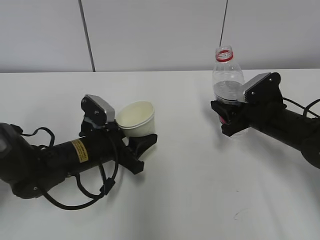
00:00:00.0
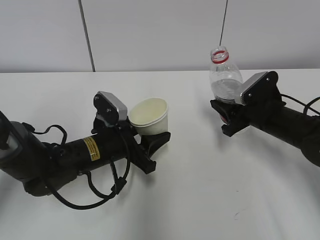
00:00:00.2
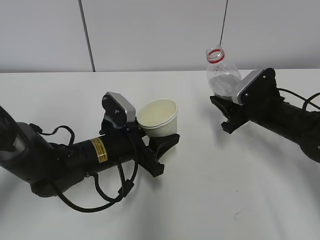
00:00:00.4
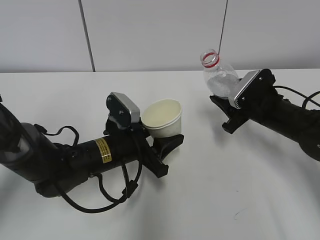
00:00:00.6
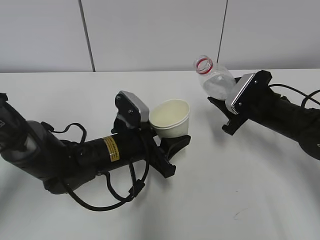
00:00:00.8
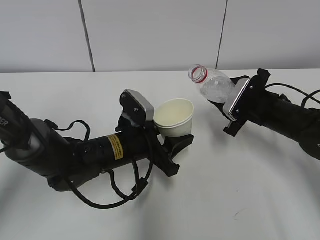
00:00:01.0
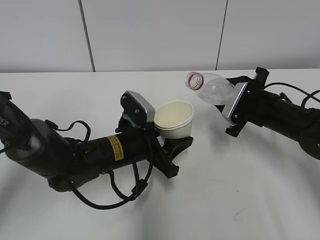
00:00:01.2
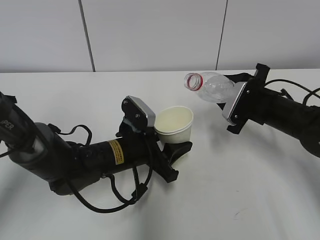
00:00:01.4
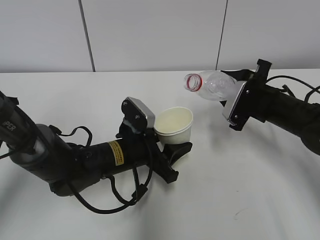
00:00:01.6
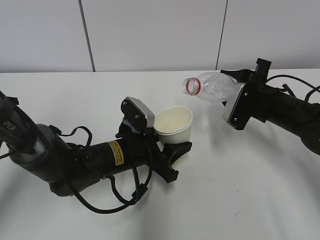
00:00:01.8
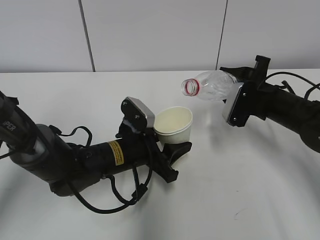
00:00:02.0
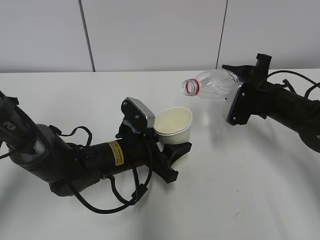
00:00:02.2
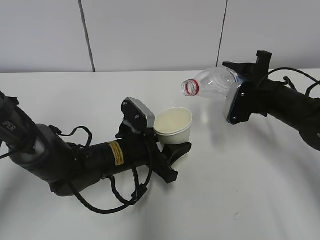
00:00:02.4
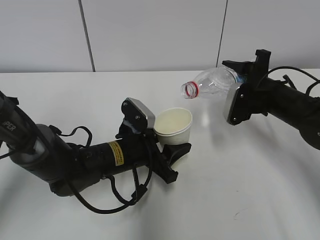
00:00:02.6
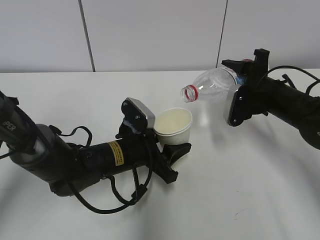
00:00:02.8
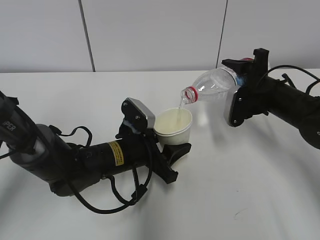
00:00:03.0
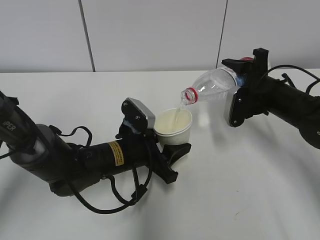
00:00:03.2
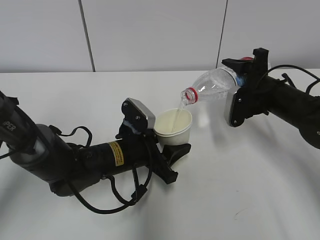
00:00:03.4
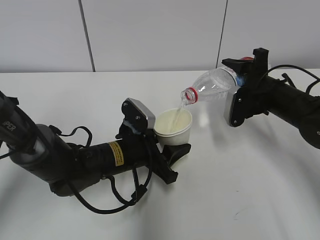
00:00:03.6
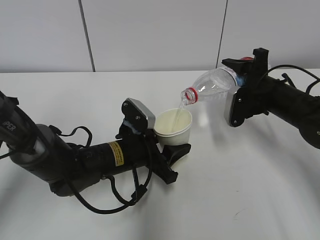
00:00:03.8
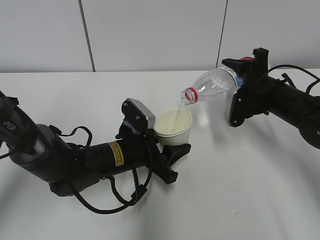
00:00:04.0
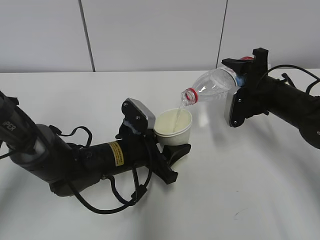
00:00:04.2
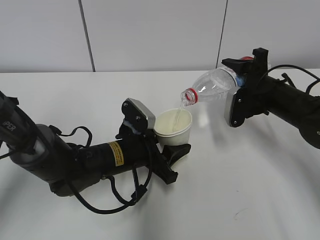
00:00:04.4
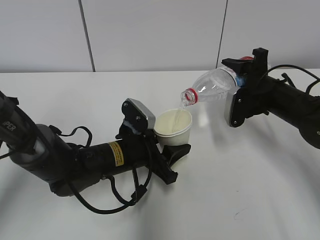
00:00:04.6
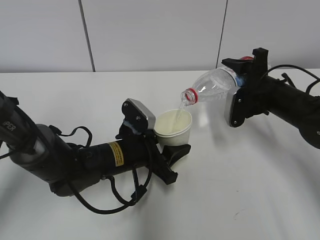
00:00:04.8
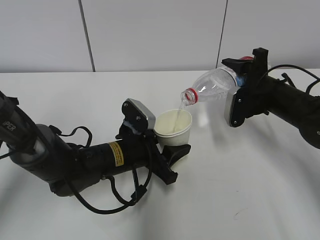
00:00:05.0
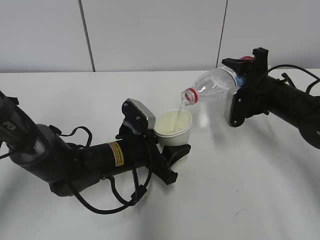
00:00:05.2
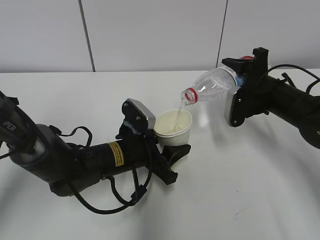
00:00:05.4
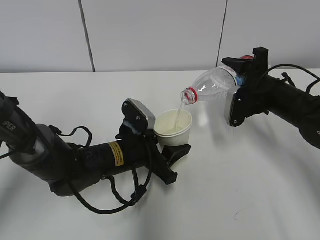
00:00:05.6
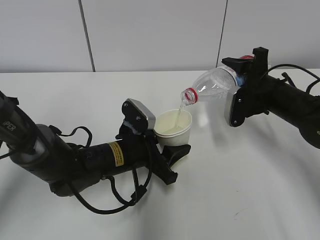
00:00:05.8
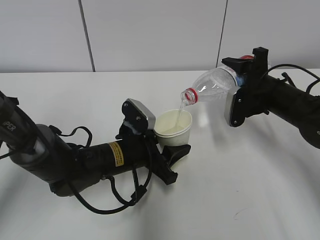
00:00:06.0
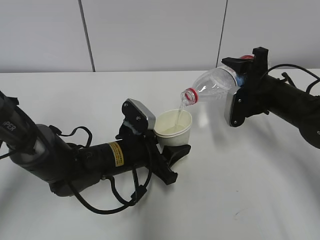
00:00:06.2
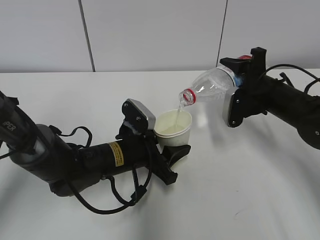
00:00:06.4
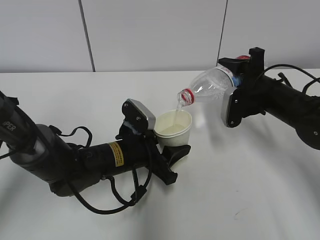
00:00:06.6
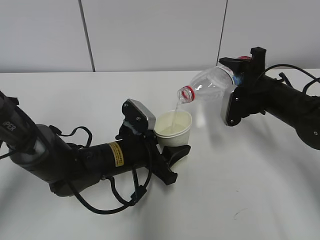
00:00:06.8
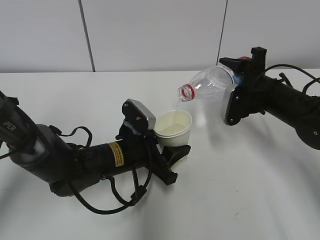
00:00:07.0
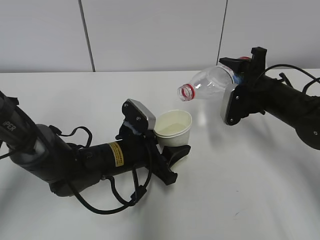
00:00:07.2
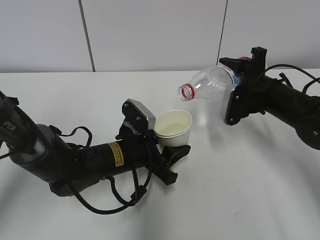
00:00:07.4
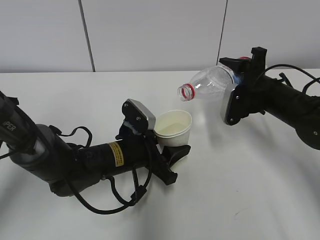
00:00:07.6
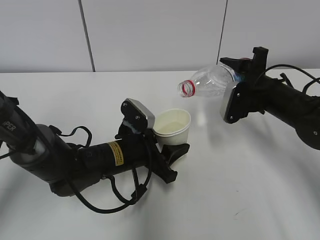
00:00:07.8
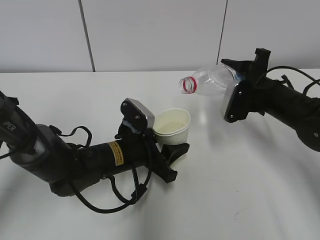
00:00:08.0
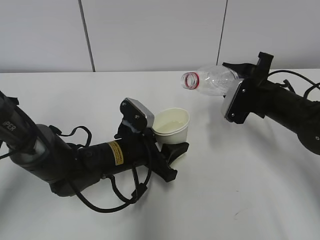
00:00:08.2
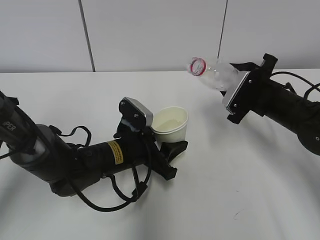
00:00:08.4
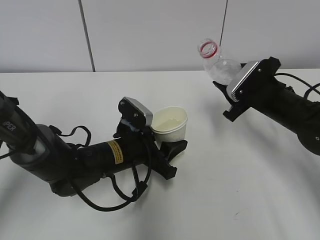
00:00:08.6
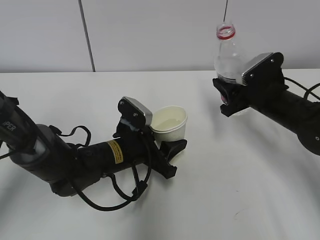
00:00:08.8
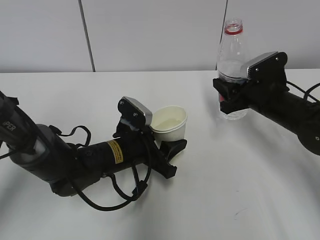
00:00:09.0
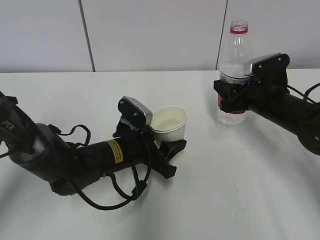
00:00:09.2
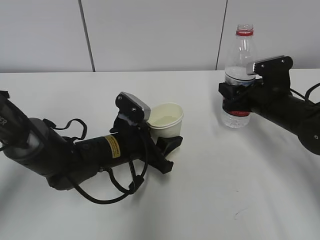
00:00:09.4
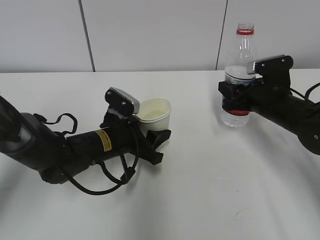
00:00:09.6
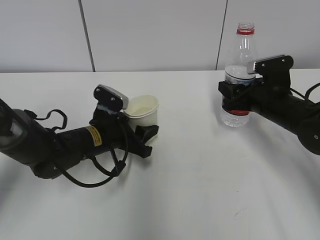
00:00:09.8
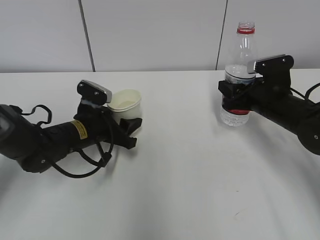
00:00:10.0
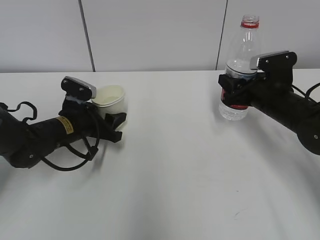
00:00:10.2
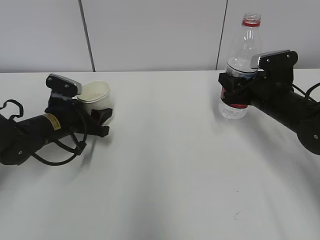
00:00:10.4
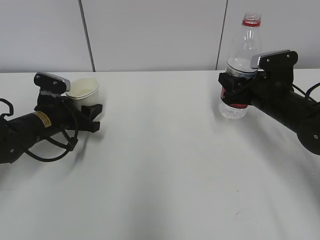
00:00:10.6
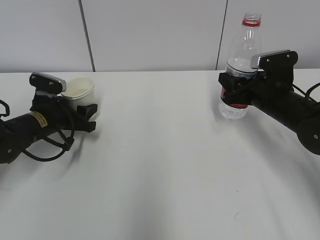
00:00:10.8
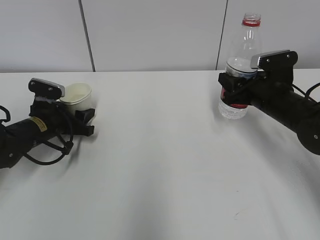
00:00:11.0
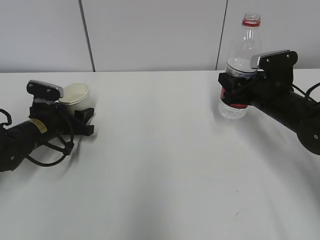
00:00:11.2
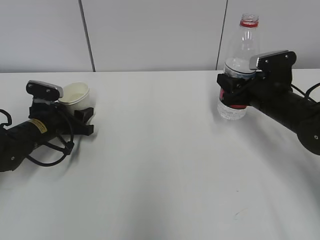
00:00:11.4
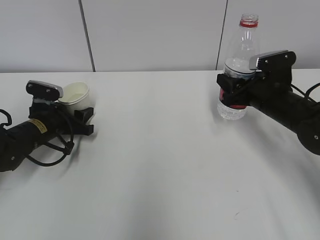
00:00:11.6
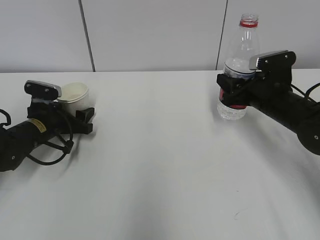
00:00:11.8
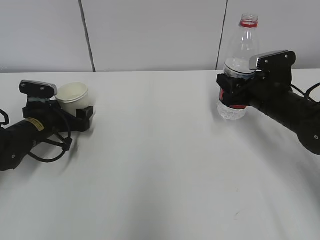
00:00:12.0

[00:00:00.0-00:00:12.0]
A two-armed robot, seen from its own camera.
Step, 00:00:00.6 to 00:00:04.6: Fill water with the left hand.
Step, 00:00:00.6 to 00:00:04.6: Pour water with the right hand.
Step, 00:00:05.8 to 00:00:08.0: Place the paper cup with the left hand.
00:00:00.0 to 00:00:01.6: The left gripper heads to the right, covering roughly 5 cm.
00:00:03.0 to 00:00:07.6: Neither gripper changes place.
00:00:09.0 to 00:00:10.4: The left gripper shifts roughly 15 cm to the left and forward.
00:00:10.4 to 00:00:12.0: The left gripper moves roughly 5 cm, and opens its fingers.

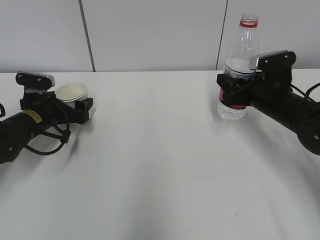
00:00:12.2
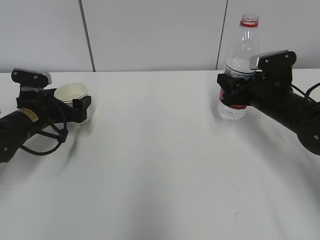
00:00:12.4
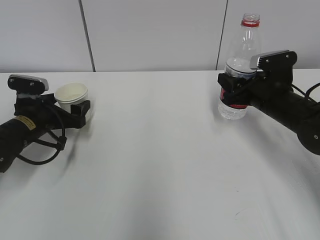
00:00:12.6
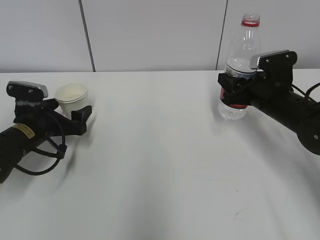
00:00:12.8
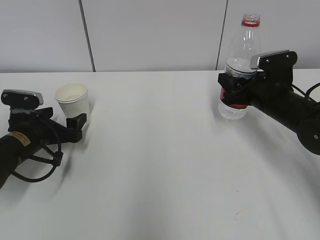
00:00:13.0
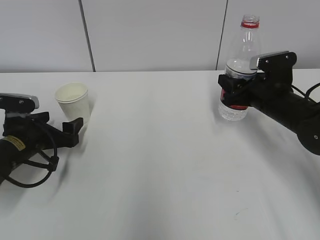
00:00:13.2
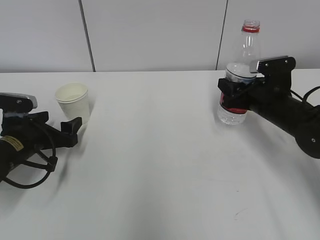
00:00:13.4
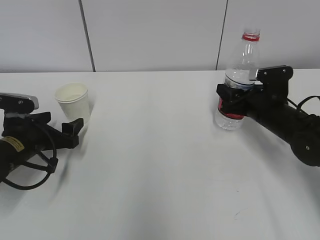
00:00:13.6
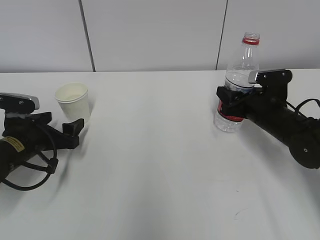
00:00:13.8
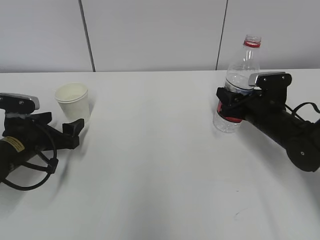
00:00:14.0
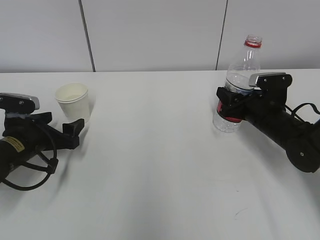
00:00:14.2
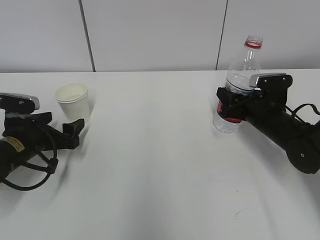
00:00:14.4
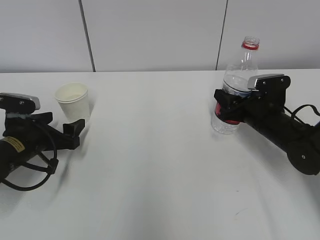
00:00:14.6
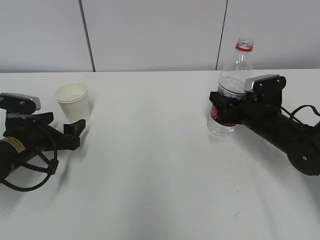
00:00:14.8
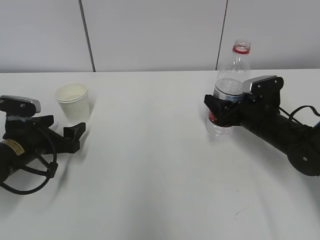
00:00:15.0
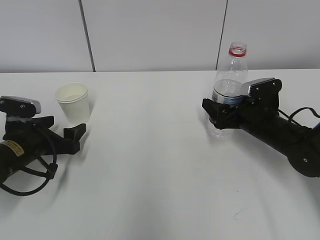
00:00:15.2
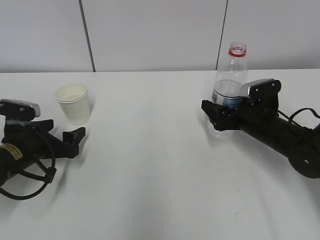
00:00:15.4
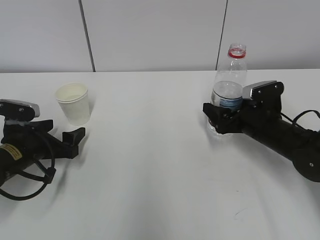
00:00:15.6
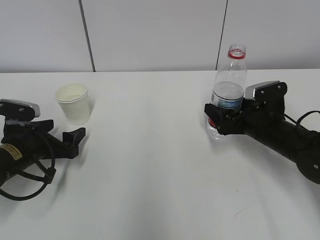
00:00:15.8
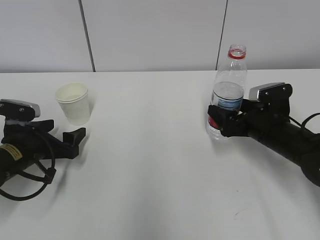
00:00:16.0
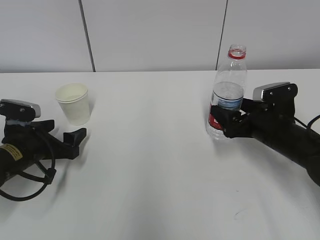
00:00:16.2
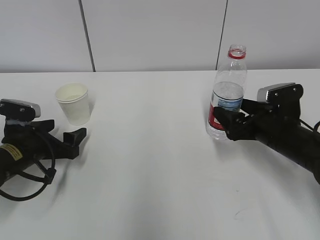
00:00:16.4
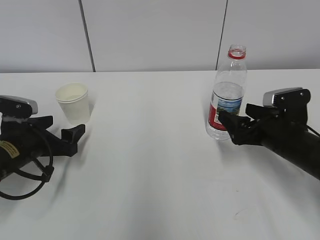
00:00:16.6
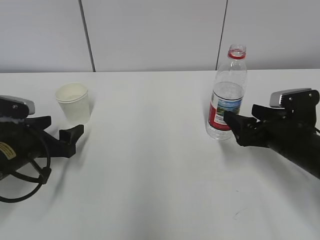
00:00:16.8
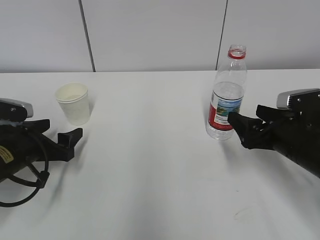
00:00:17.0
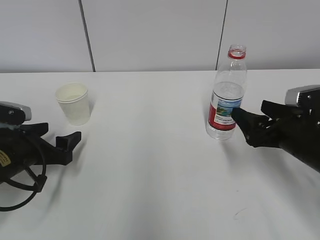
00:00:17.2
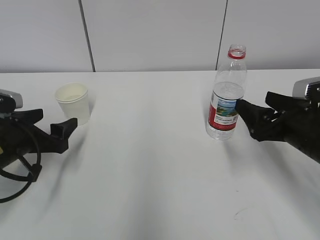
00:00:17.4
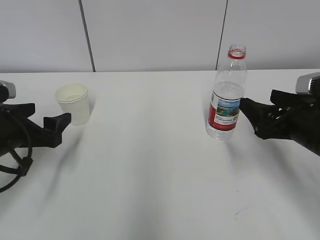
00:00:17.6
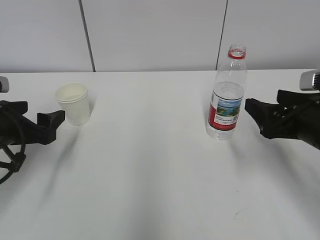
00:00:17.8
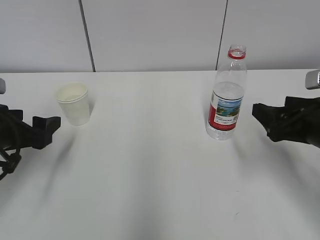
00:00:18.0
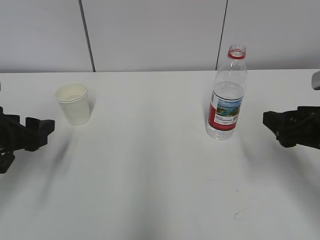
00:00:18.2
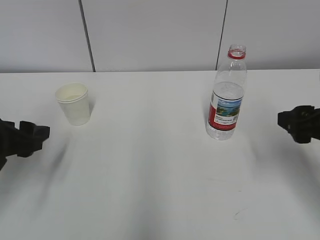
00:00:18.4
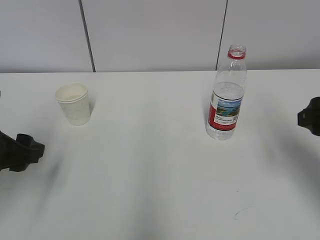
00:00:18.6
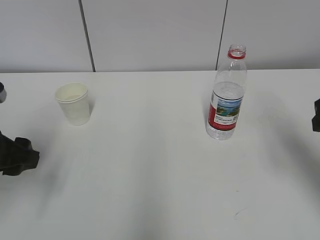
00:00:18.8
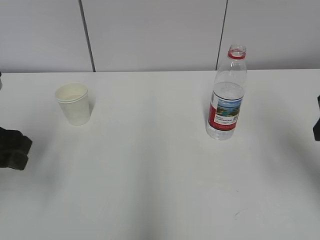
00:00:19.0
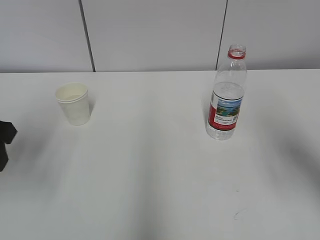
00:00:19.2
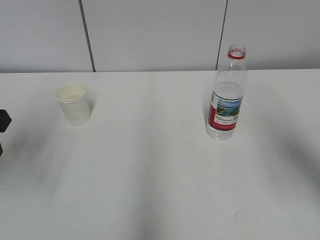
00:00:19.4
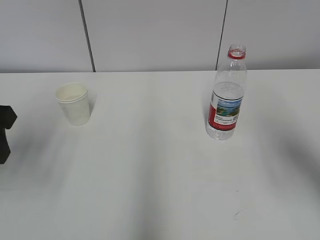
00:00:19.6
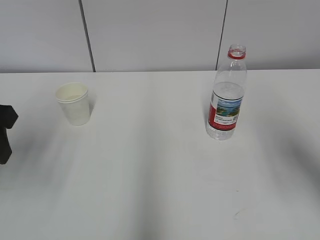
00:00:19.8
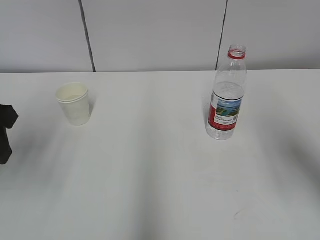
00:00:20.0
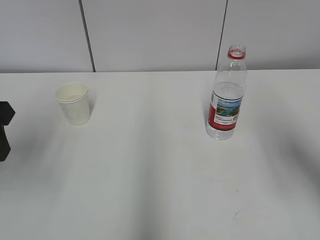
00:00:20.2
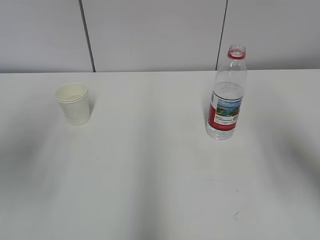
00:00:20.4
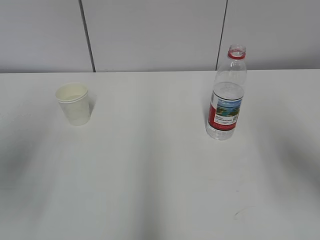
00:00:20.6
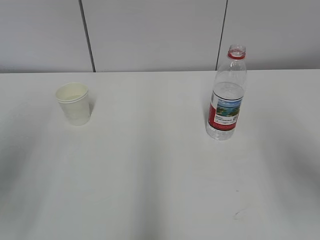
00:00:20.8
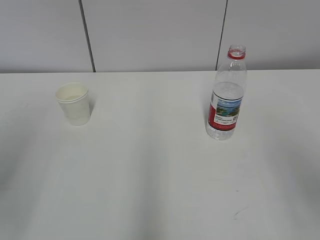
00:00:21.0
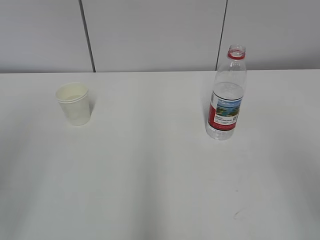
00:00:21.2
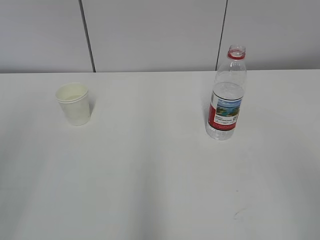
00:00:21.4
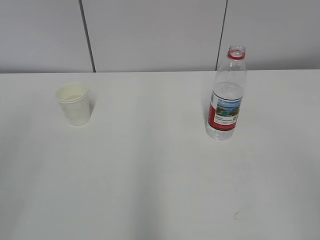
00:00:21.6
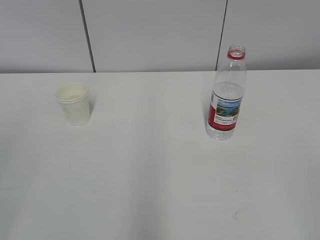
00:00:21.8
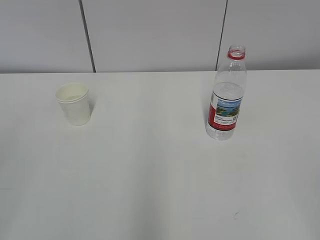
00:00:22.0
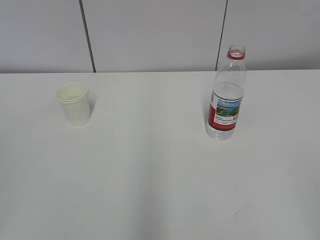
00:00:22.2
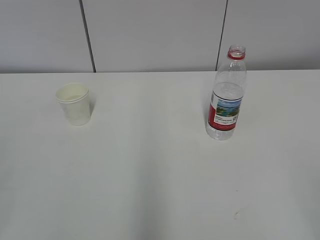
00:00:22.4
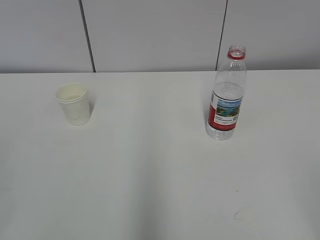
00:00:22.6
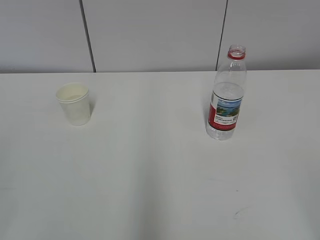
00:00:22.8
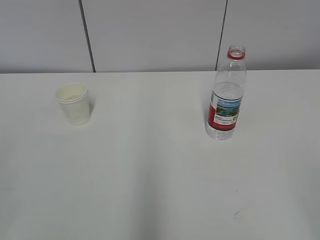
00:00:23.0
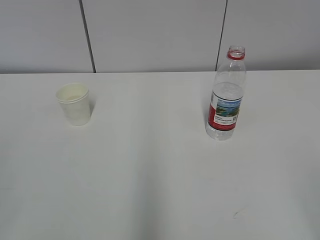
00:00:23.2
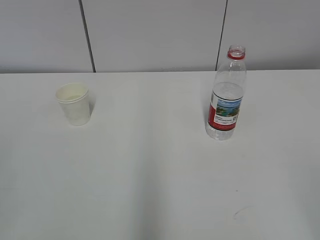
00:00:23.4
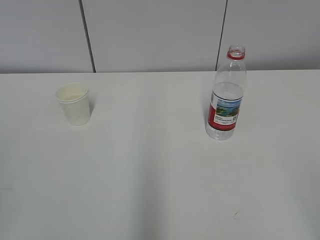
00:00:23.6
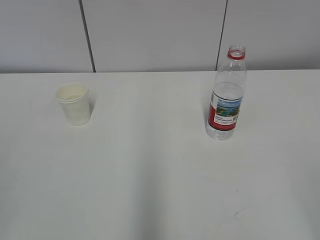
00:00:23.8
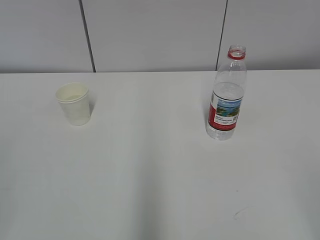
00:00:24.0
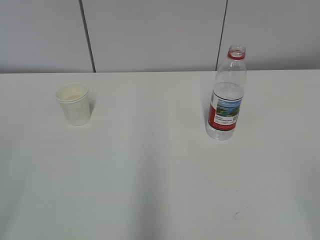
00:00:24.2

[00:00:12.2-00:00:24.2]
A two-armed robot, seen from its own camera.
00:00:12.2 to 00:00:13.8: The left gripper goes roughly 5 cm backward.
00:00:13.8 to 00:00:15.2: The right gripper opens its fingers.
00:00:15.2 to 00:00:16.6: The right gripper goes about 5 cm backward.
00:00:16.6 to 00:00:18.2: The right gripper goes roughly 10 cm upward and backward; the left gripper shifts approximately 10 cm upward.
00:00:18.2 to 00:00:19.8: The two grippers go some 10 cm upward. The right gripper closes up.
00:00:19.8 to 00:00:21.2: The right gripper moves backward, some 15 cm. Meanwhile the left gripper travels backward and upward by some 15 cm, and closes its fingers.
